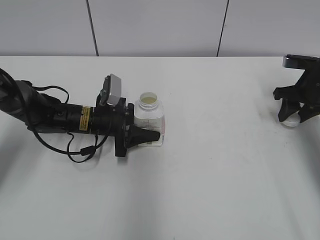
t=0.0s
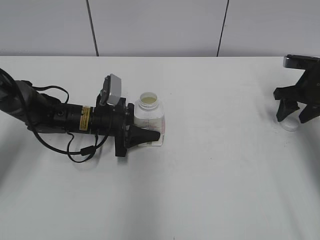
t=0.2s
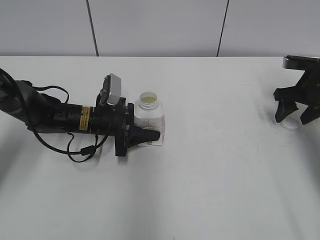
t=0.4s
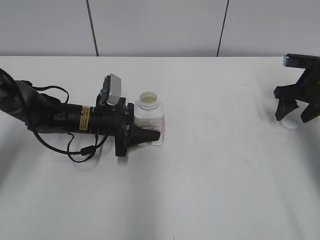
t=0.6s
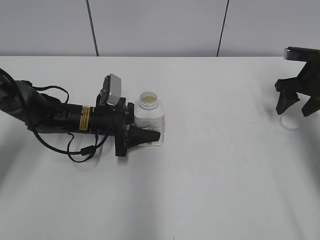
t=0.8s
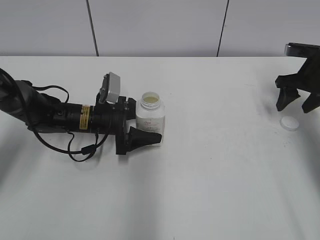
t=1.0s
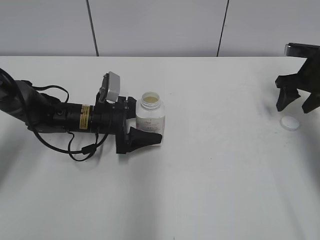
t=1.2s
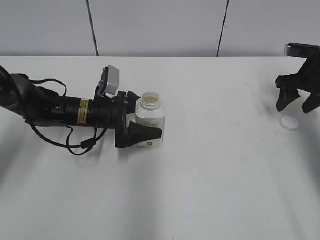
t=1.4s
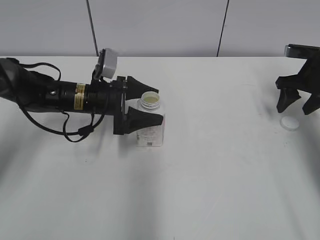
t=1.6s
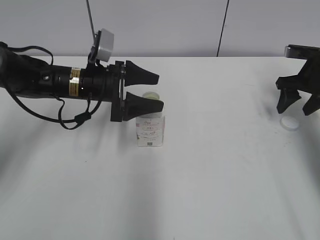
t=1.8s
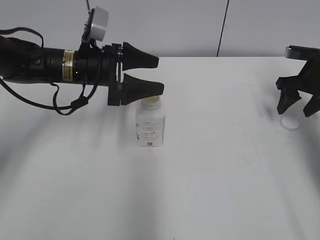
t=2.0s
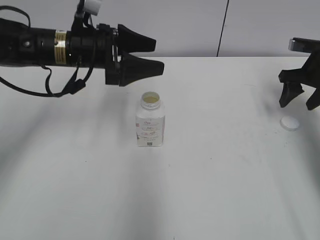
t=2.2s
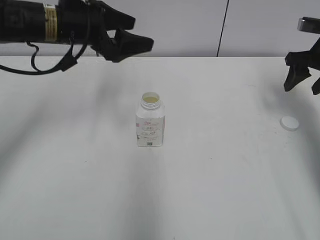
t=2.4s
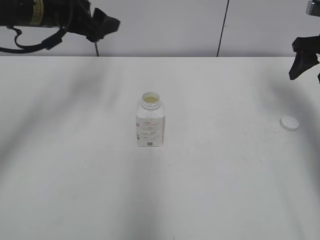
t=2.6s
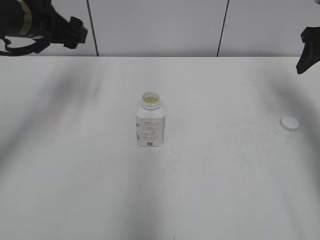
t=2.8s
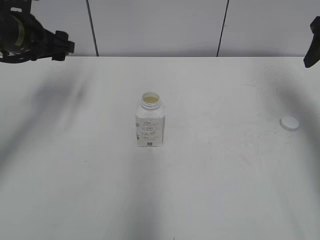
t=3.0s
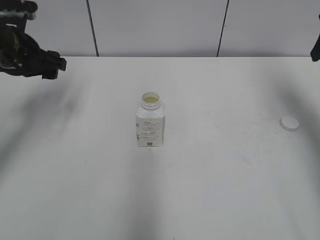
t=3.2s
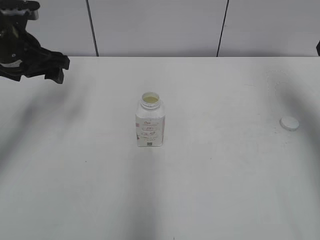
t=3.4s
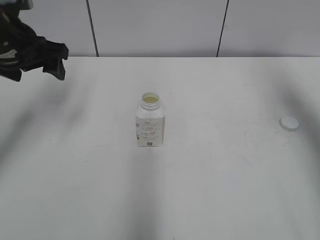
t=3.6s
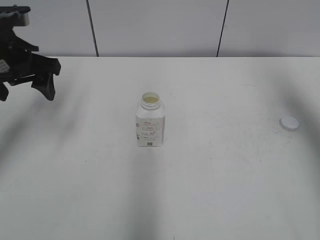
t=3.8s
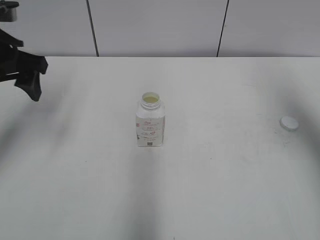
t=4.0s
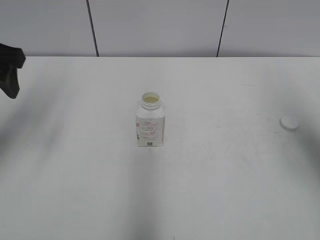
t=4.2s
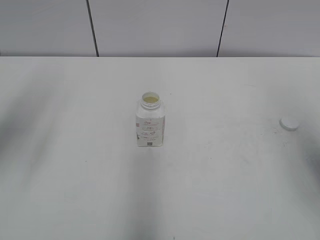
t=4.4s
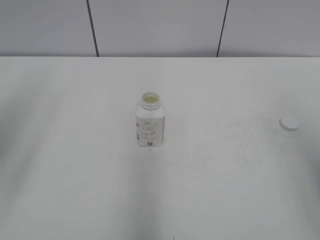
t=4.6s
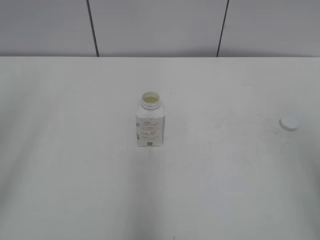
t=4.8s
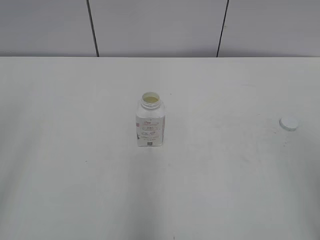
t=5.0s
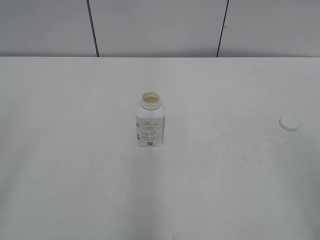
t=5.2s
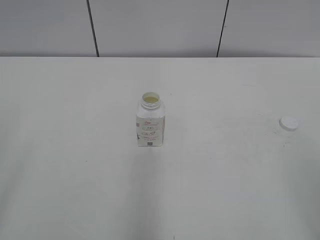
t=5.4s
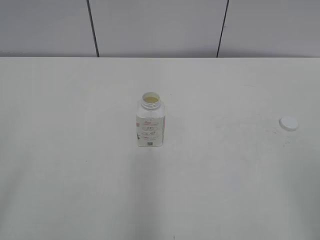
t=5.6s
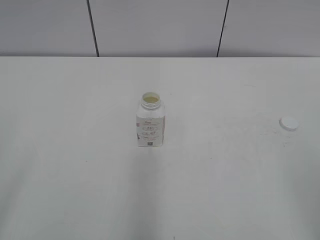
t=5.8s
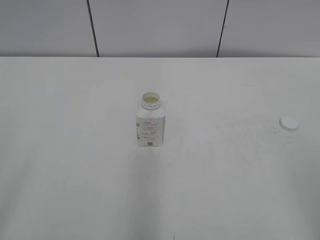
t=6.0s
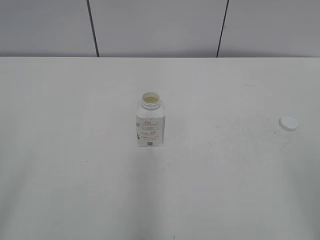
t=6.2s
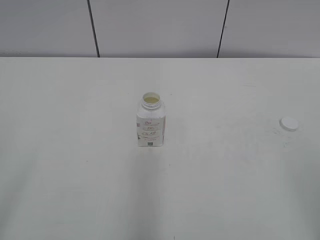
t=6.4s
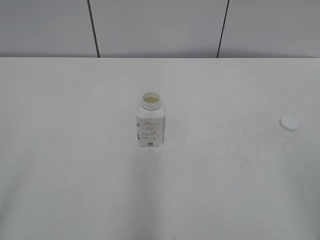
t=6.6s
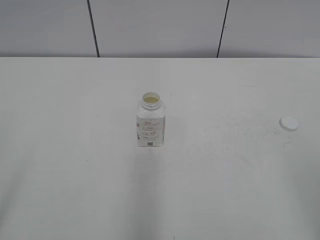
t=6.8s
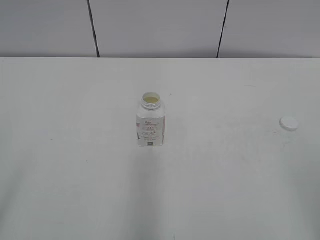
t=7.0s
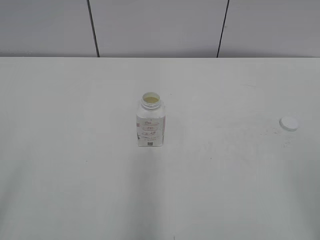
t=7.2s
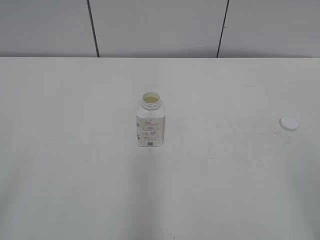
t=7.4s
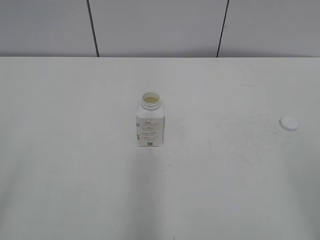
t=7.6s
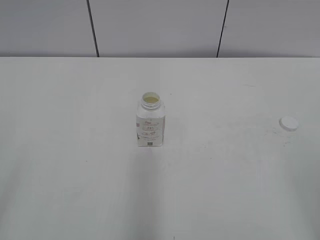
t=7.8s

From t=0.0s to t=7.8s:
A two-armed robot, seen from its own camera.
From t=0.0s to t=1.6s: The left gripper opens its fingers, while the right gripper opens.
From t=1.6s to t=3.2s: The right gripper goes approximately 15 cm upward. The left gripper is displaced upward and to the left by approximately 20 cm.
From t=3.2s to t=4.6s: The left gripper shifts about 20 cm backward and upward. Meanwhile the right gripper travels backward by roughly 25 cm.

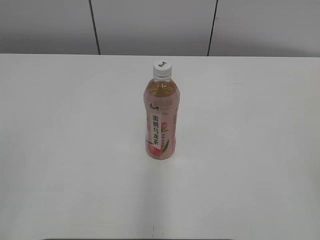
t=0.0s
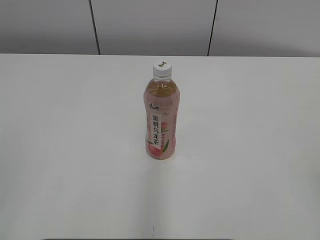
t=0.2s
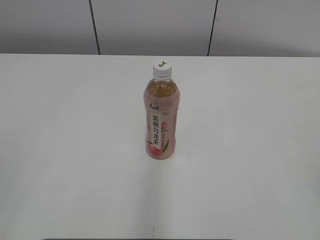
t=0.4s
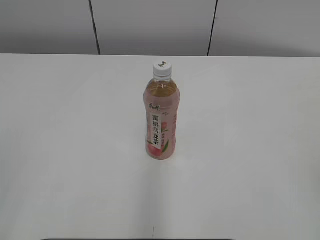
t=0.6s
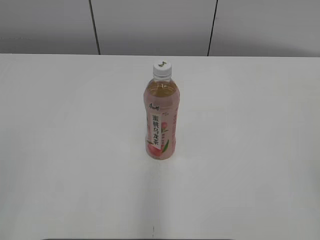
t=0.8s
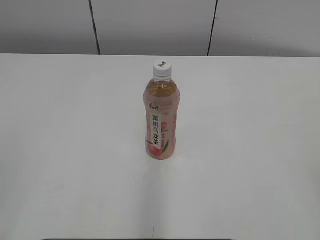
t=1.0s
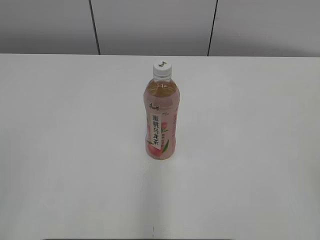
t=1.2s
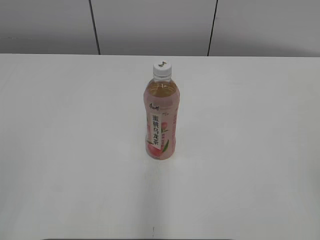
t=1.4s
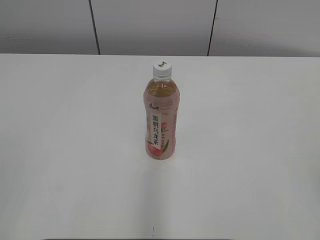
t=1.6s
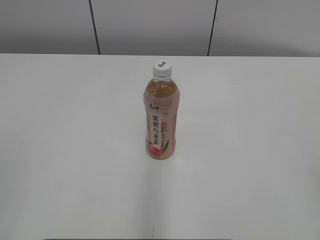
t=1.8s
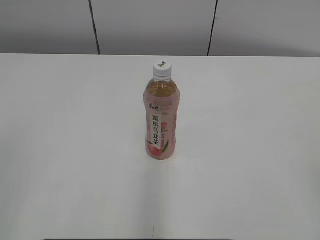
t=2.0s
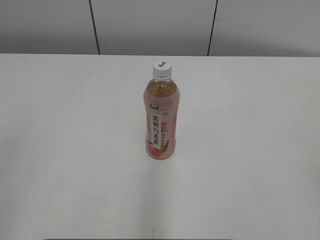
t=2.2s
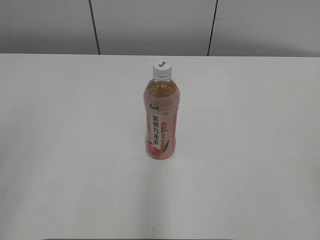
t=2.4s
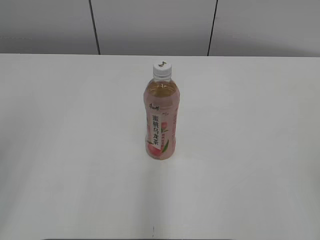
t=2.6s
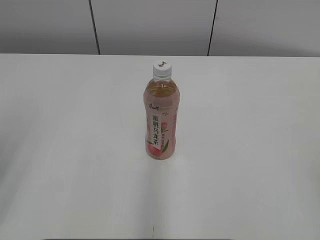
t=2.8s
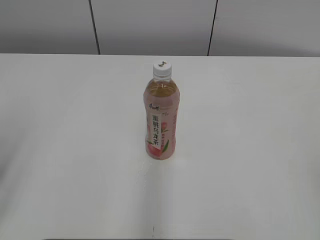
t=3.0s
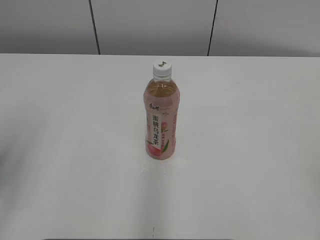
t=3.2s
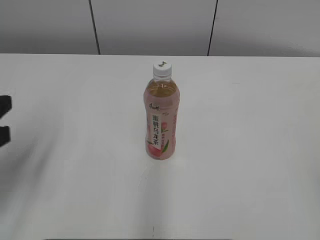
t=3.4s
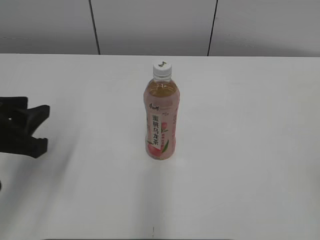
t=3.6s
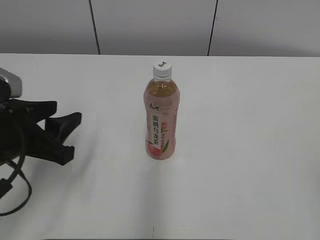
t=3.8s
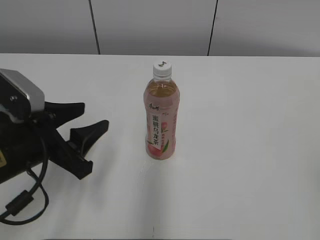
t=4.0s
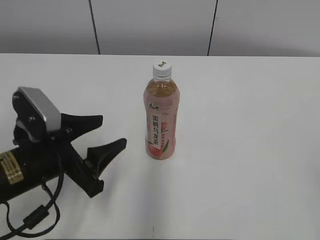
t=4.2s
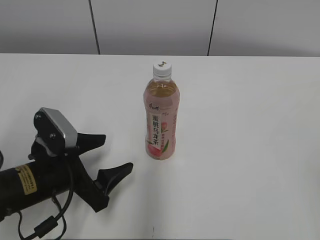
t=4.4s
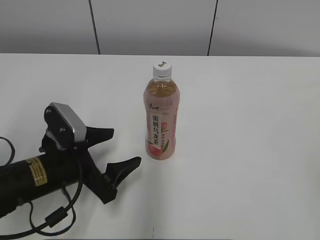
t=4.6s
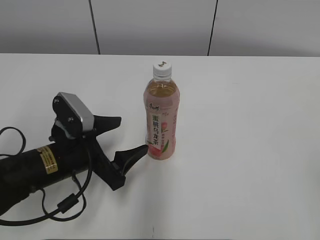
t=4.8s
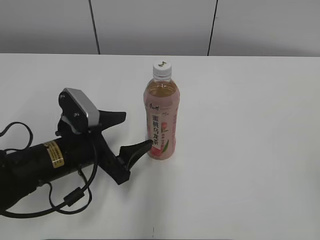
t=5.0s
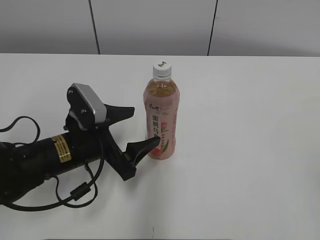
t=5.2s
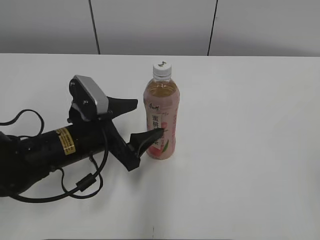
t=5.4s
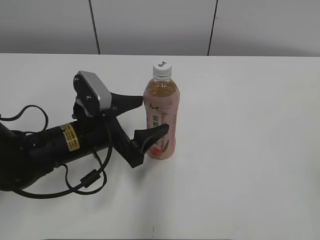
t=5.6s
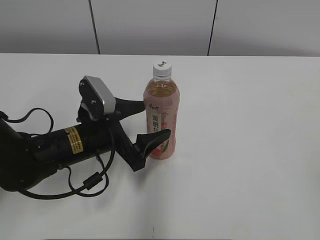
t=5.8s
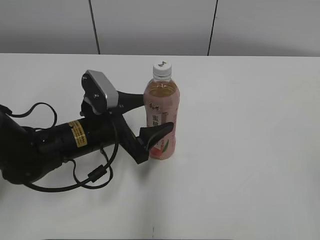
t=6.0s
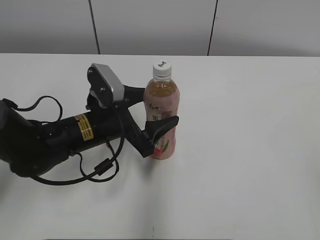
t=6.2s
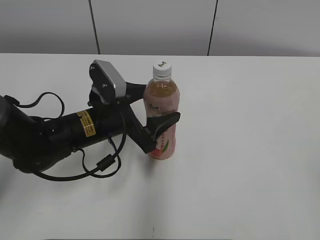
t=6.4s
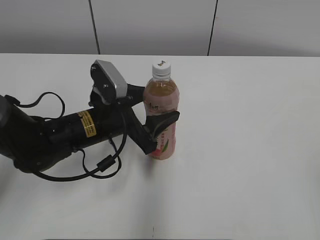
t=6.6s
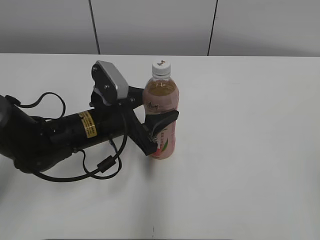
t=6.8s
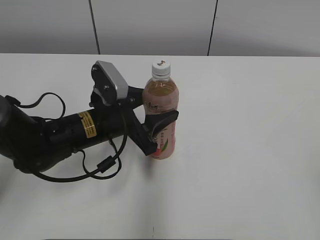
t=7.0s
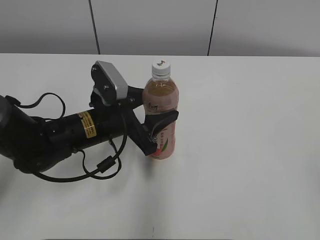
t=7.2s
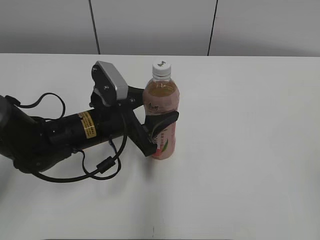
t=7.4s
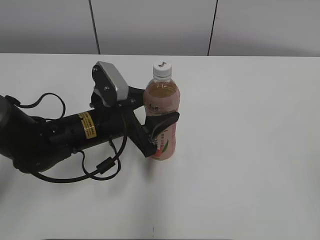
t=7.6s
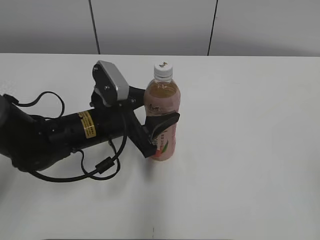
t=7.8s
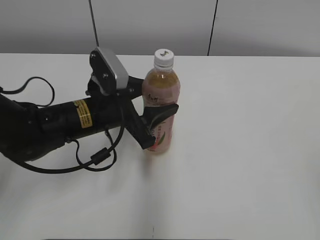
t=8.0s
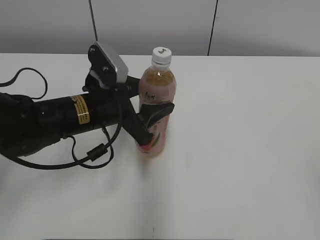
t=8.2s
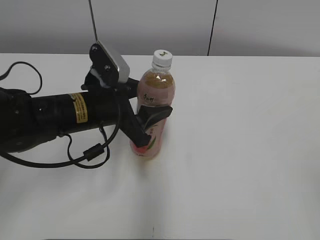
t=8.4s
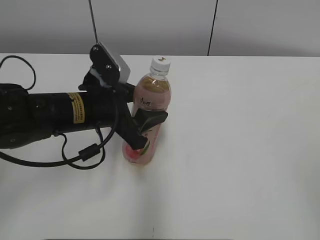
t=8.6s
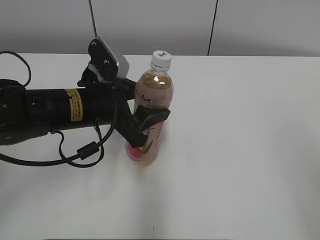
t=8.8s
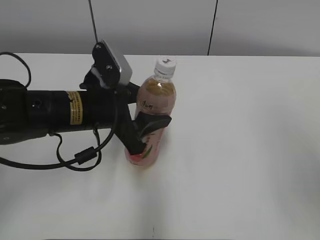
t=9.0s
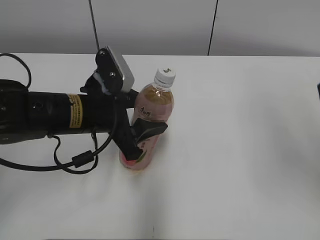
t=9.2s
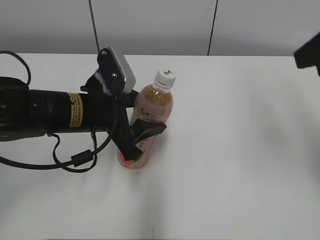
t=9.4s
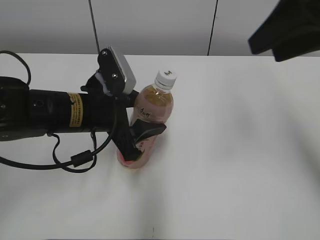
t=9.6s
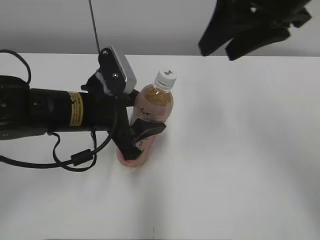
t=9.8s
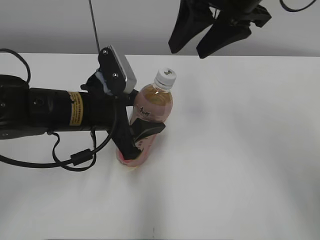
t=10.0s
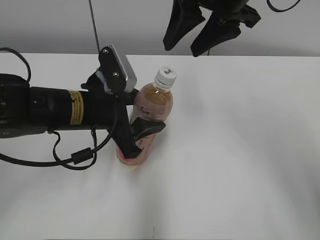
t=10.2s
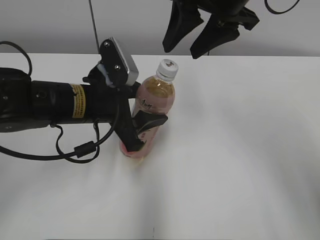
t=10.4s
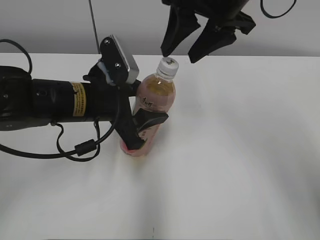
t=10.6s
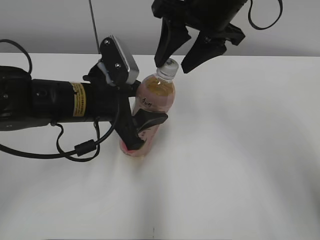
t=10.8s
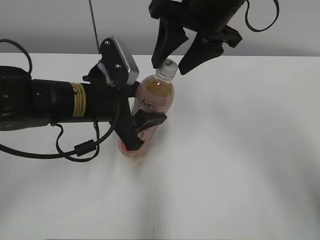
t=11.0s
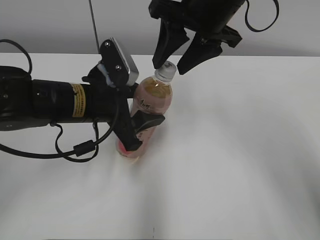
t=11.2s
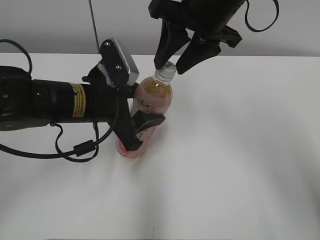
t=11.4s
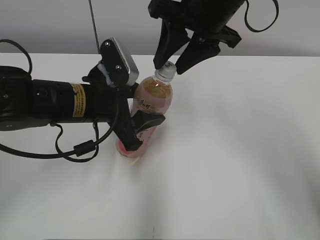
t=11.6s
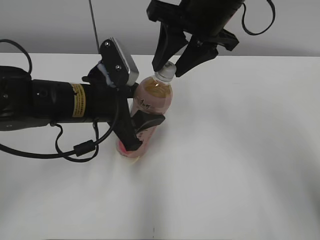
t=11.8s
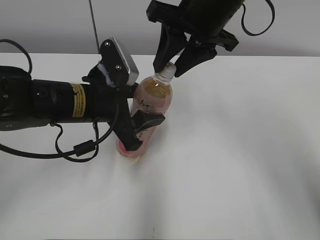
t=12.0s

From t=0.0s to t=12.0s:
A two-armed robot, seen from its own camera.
Step, from t=0.0s to t=7.0s: Grasp the bottle and move it to the center of the table with the left gripper.
Step, from t=7.2s to t=9.4s: Lift the bottle and move it to the center of the table with the left gripper.
From t=3.0s to t=4.4s: The left gripper moves downward, to the right and forward, some 25 cm, and opens its fingers.
From t=4.4s to t=6.0s: The left gripper shifts about 10 cm forward and to the right.
From t=6.0s to t=7.6s: The left gripper closes.
From t=7.6s to t=9.0s: The left gripper shifts about 5 cm upward. Meanwhile the right gripper moves forward, about 10 cm.
From t=9.0s to t=10.4s: The right gripper shifts approximately 30 cm forward and to the left.
From t=10.4s to t=12.0s: The grippers make only small movements.

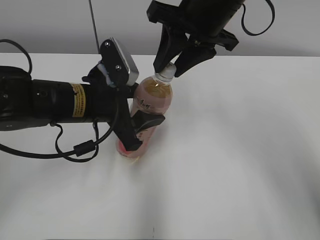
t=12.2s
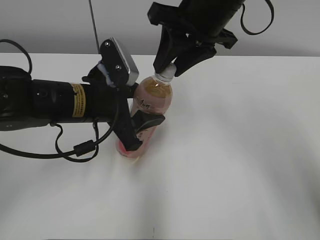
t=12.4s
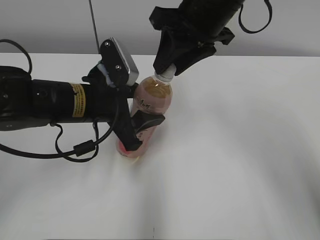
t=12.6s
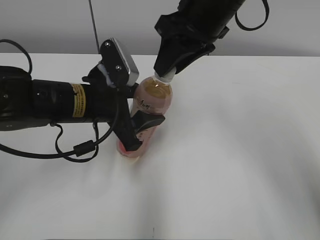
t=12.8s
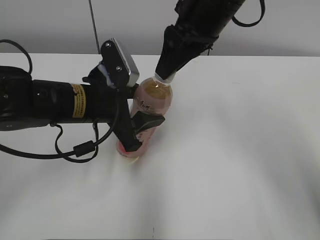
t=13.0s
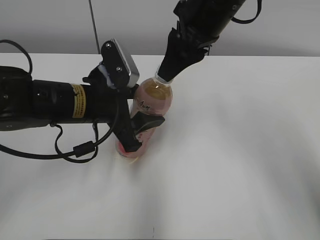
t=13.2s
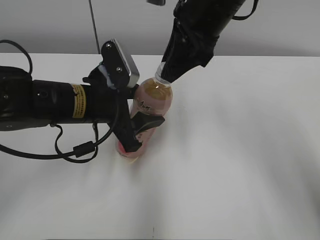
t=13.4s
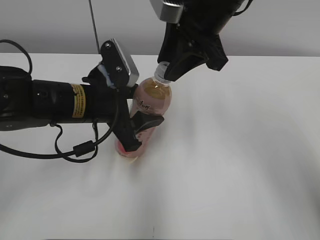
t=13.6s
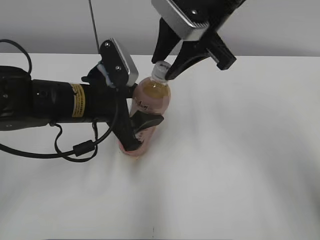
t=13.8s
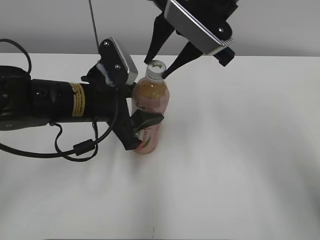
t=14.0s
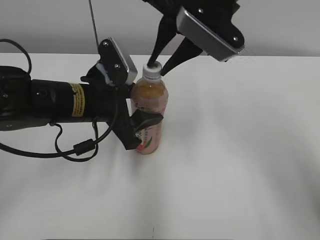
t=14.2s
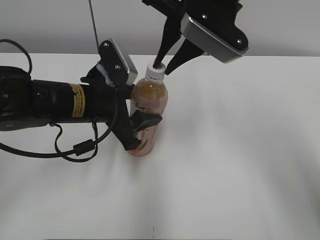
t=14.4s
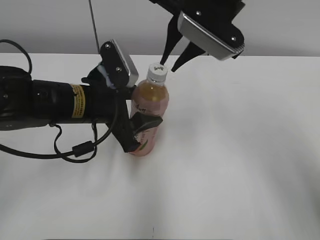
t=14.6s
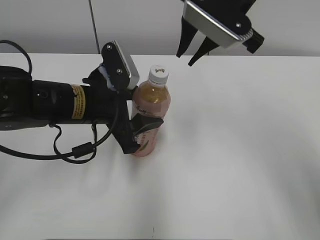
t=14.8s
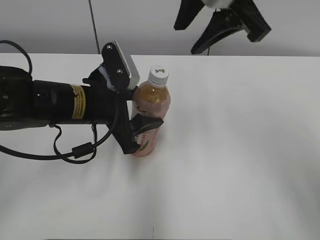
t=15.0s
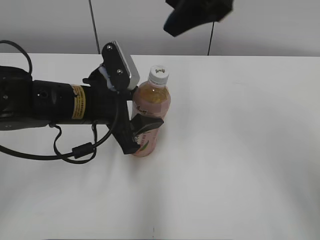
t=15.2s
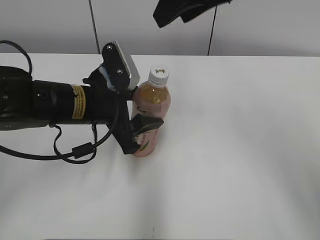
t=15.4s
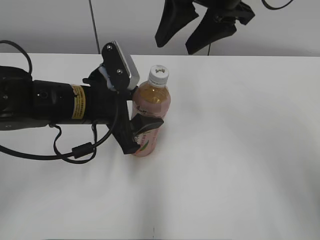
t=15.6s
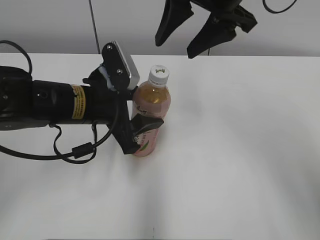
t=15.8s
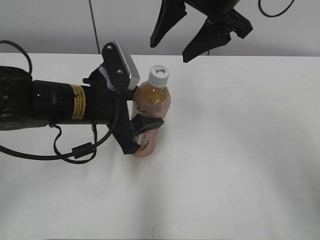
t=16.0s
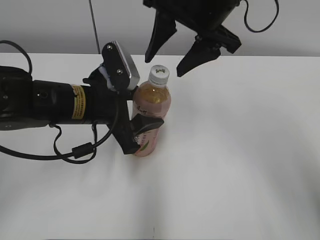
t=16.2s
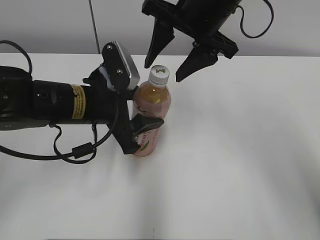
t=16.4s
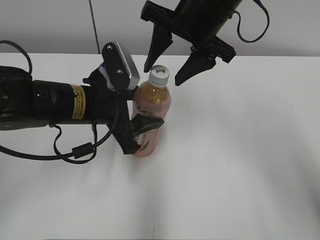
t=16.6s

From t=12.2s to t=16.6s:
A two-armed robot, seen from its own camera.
From t=13.6s to t=15.2s: The right gripper travels upward by some 5 cm, and opens up.
From t=15.2s to t=16.6s: The right gripper heads downward, covering about 5 cm.
